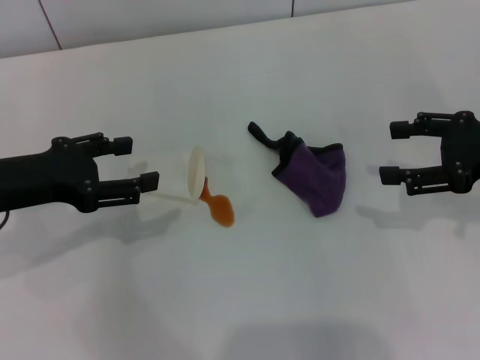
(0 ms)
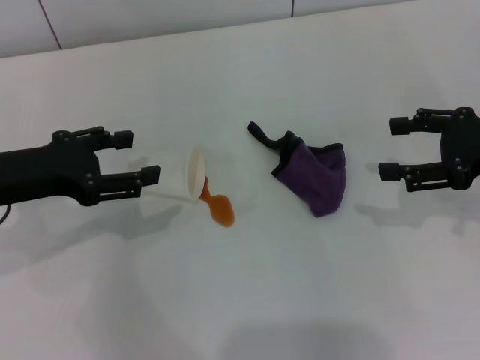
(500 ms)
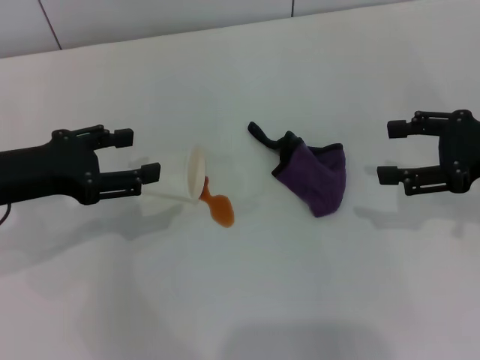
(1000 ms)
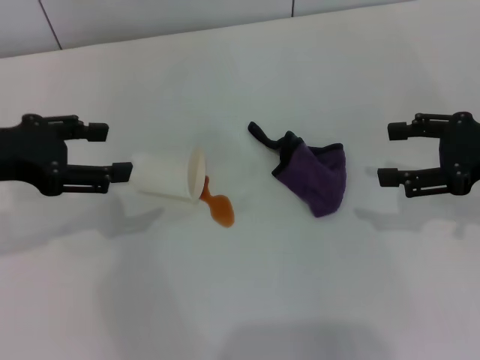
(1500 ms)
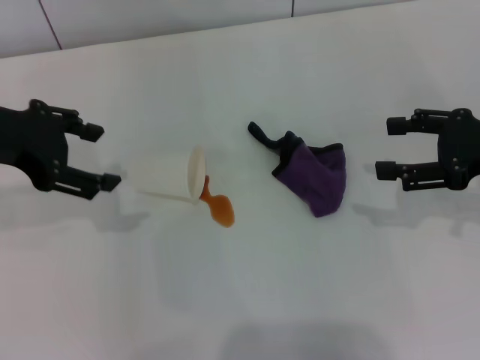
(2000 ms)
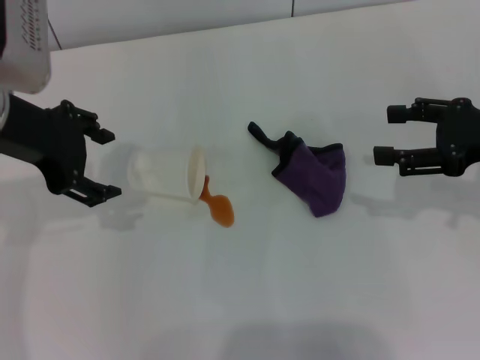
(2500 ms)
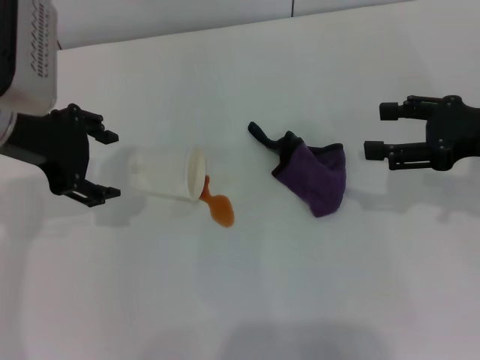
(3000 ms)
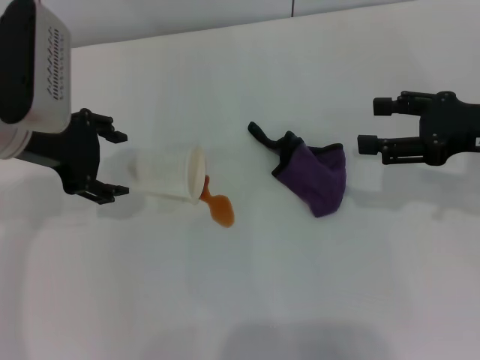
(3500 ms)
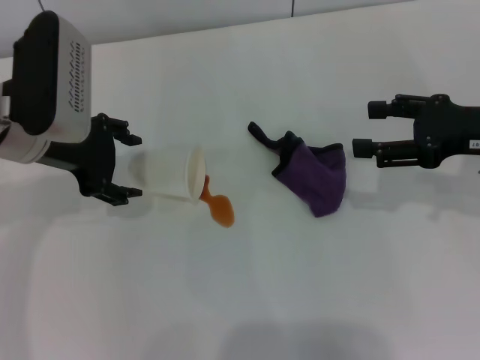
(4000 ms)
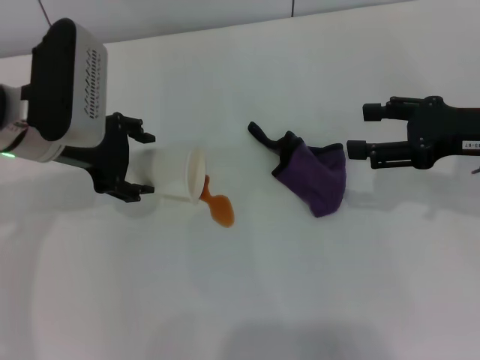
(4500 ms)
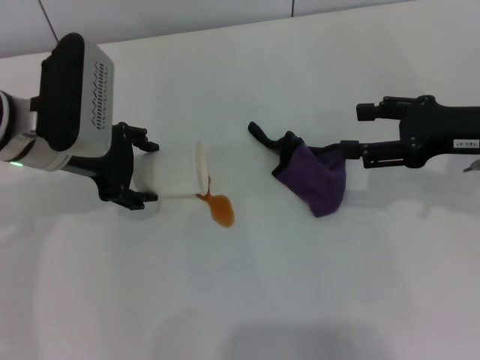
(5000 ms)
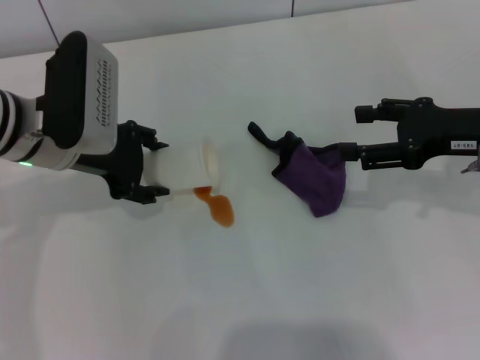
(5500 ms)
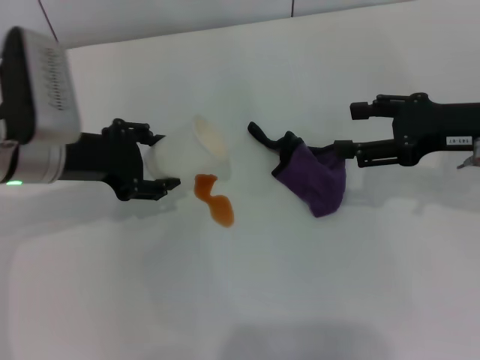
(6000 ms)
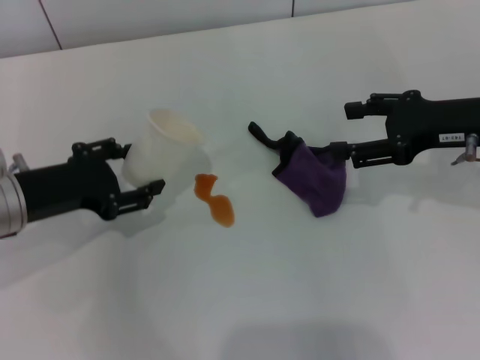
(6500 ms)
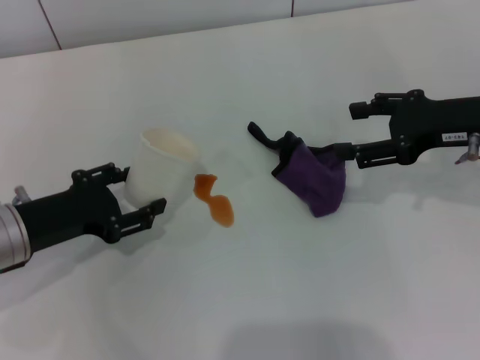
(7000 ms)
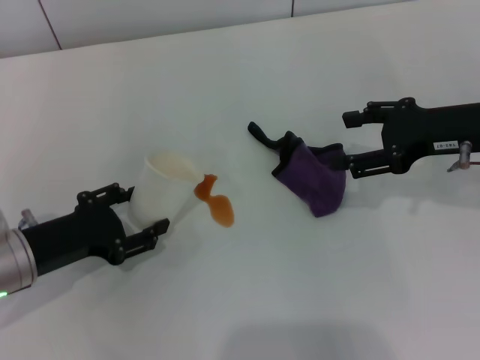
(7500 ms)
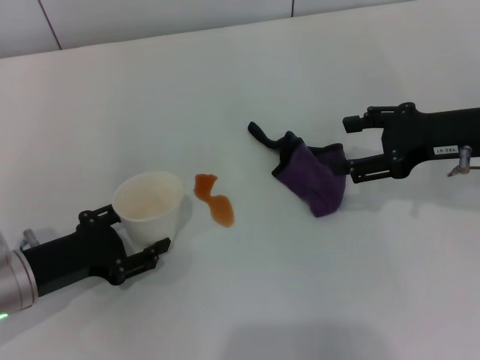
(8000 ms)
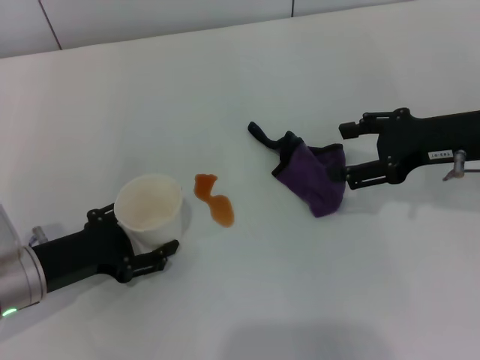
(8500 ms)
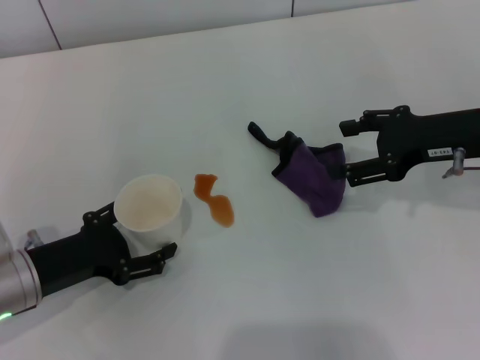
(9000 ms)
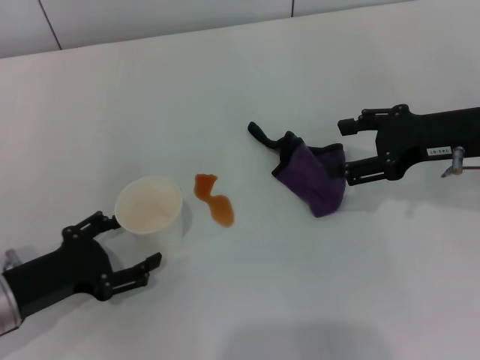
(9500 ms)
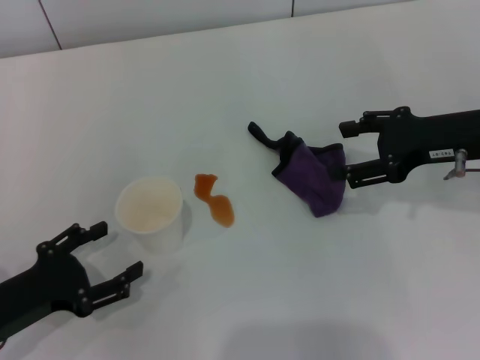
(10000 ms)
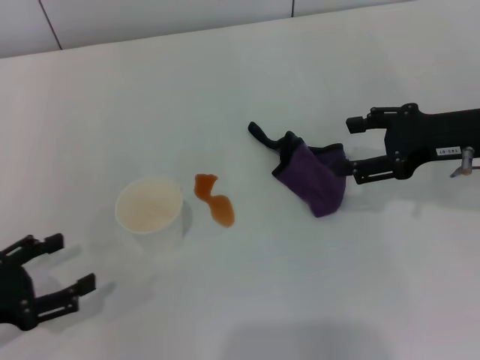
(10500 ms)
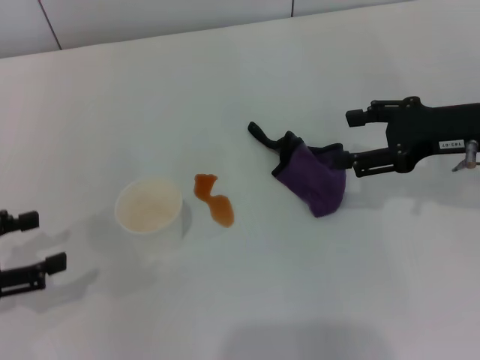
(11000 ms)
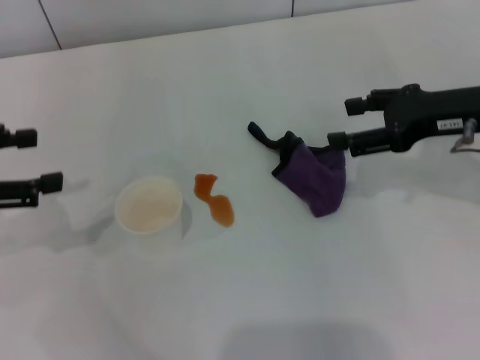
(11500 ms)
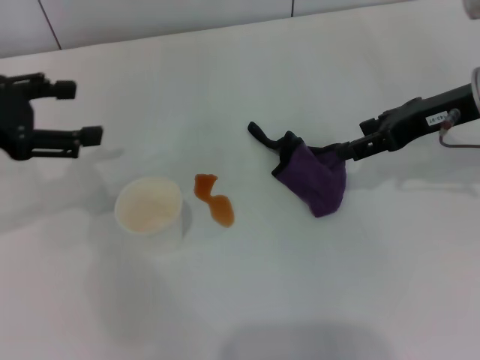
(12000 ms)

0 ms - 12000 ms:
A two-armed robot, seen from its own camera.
Step, 0 ms - 5000 ms: Grasp the paper cup with the left gripper.
Step, 5500 ms - 9500 ms: Stand the paper cup upright with the left gripper.
0 ms - 2000 ms: The left gripper moves upward, roughly 10 cm.
2000 ms - 4000 ms: The left gripper shifts approximately 10 cm downward and to the right.
4000 ms - 6000 ms: The left gripper closes.
6000 ms - 8000 ms: The left gripper moves backward, downward and to the left, about 15 cm.
8000 ms - 10000 ms: The left gripper changes place by roughly 5 cm, and opens its fingers.
10000 ms - 12000 ms: The left gripper is displaced upward and forward by approximately 20 cm.

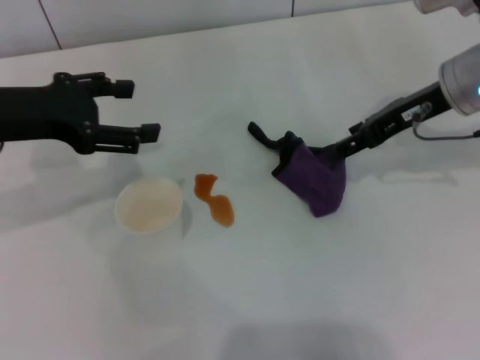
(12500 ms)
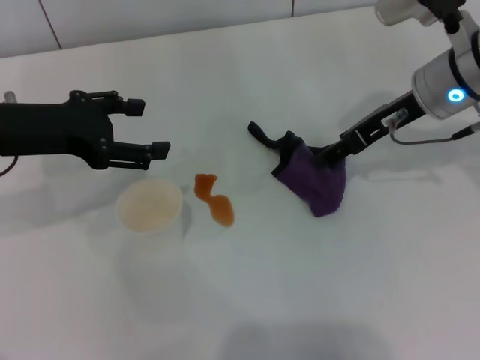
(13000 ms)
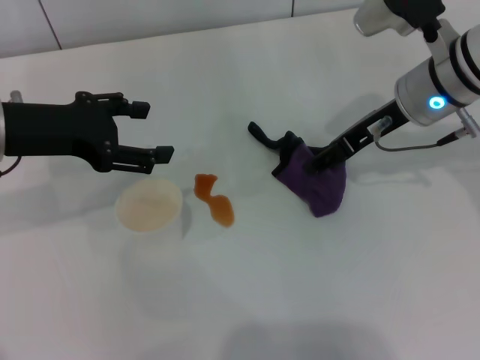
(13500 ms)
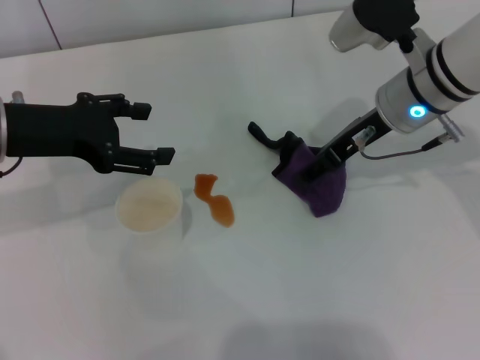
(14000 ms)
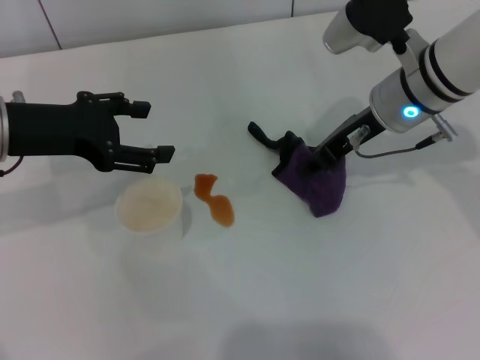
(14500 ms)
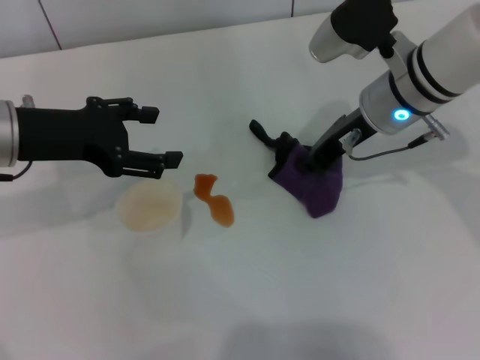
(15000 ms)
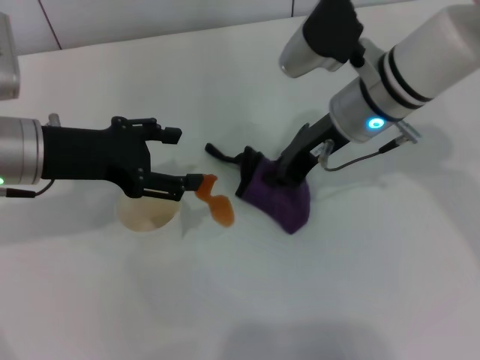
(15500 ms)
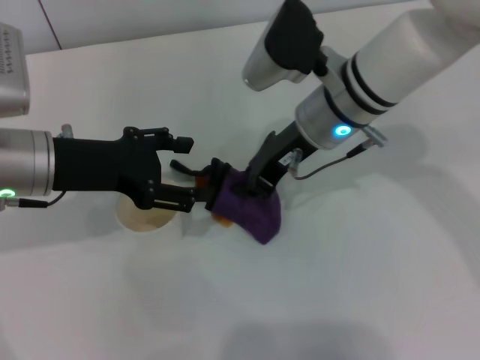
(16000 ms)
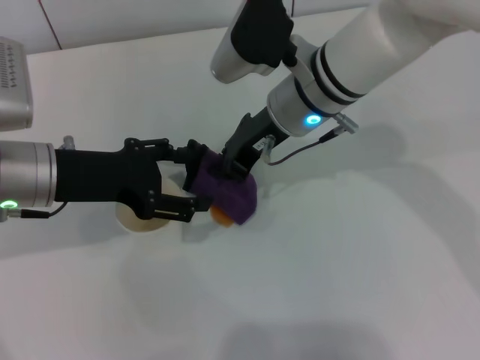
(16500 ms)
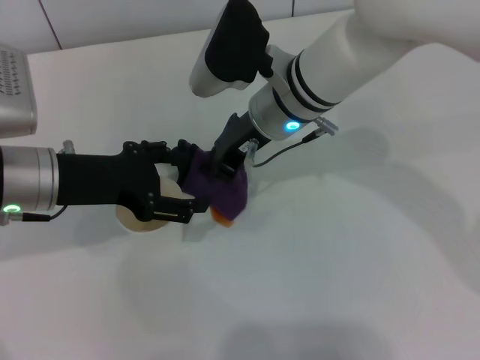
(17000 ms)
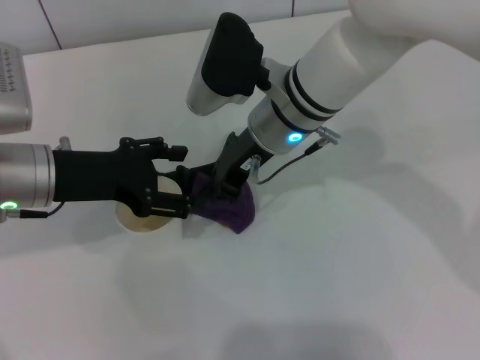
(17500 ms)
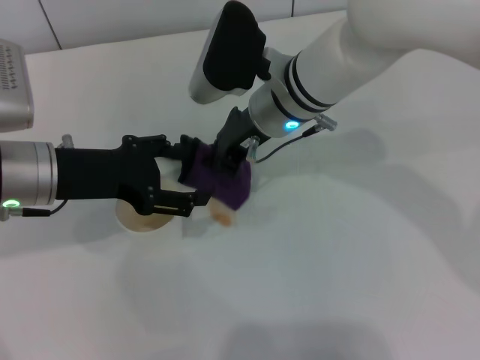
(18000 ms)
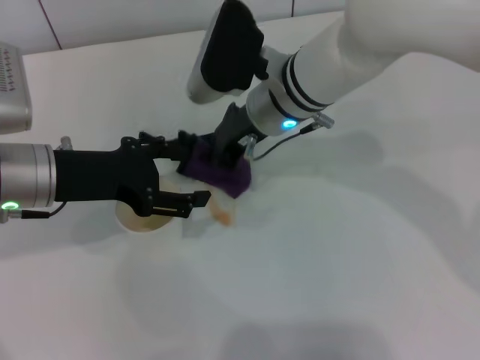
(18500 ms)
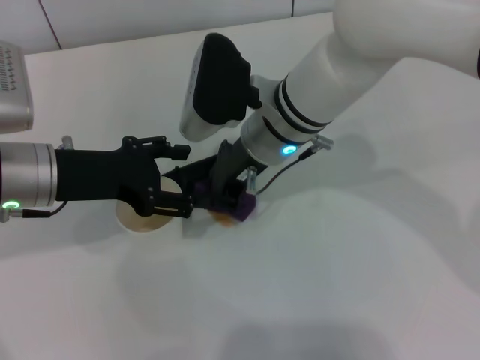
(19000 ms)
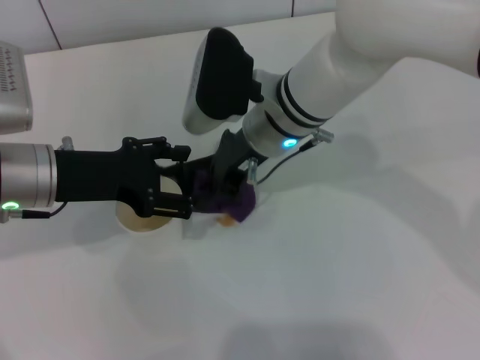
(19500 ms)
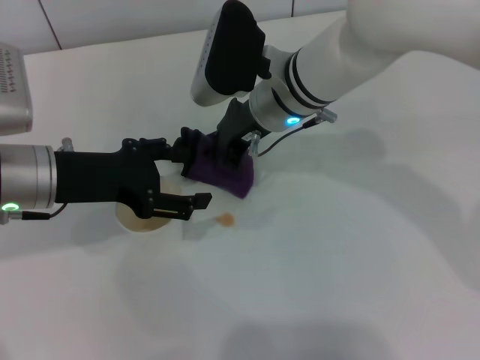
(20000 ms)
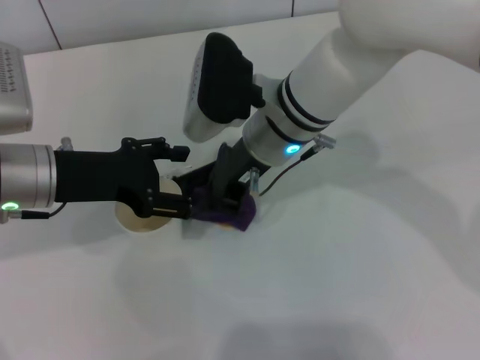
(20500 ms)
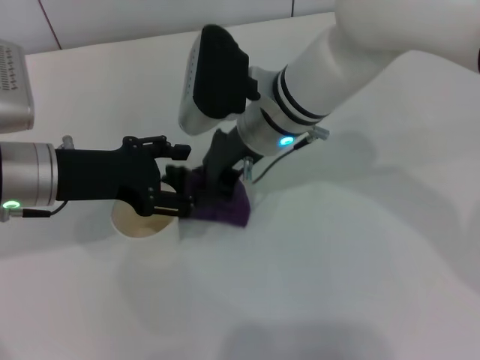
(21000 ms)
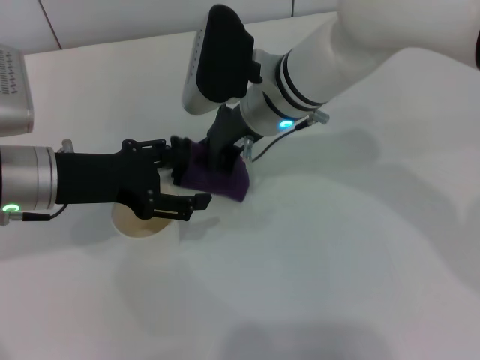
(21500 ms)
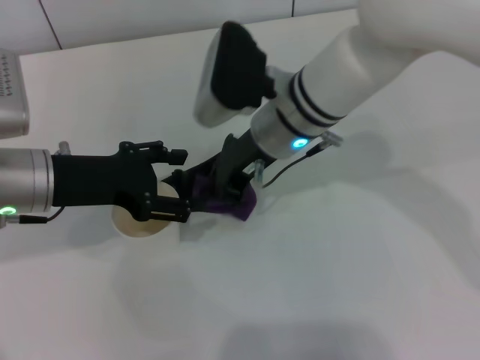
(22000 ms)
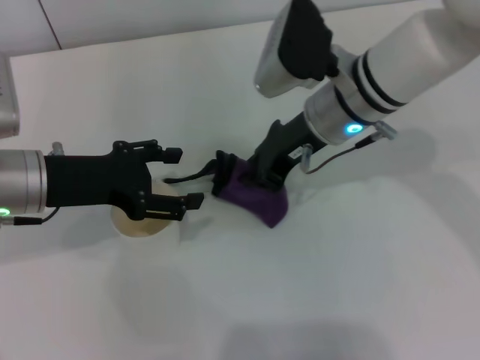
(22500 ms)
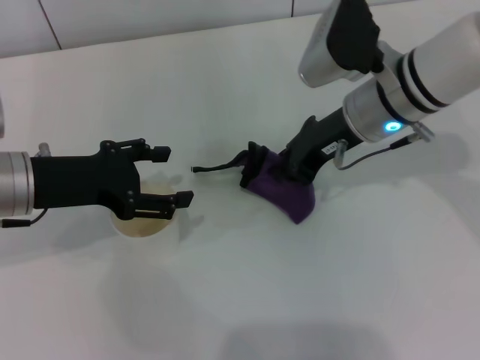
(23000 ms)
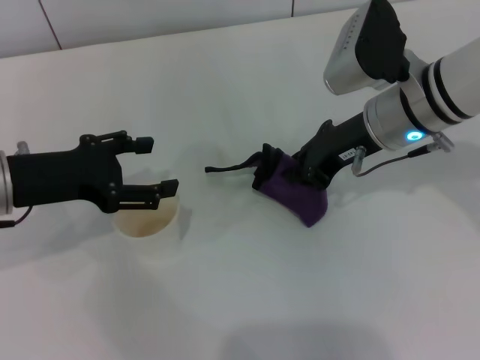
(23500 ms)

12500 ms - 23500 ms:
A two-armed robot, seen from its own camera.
Step, 12500 ms - 14500 ms: Grasp the rag with the right gripper.
12500 ms - 14500 ms: The right gripper shifts roughly 5 cm to the left.
14500 ms - 16000 ms: The right gripper goes approximately 10 cm to the left, and closes up.
16000 ms - 18000 ms: The right gripper ends up approximately 5 cm from where it was.
18000 ms - 21500 ms: The grippers make only small movements.
21500 ms - 23500 ms: The right gripper heads to the right, covering roughly 10 cm.

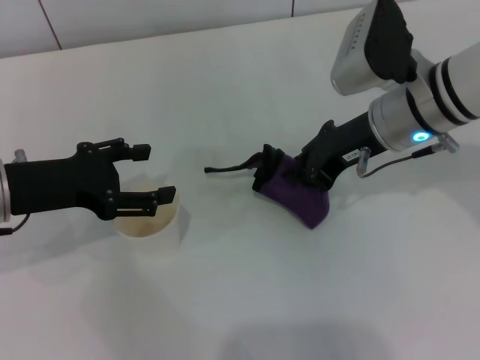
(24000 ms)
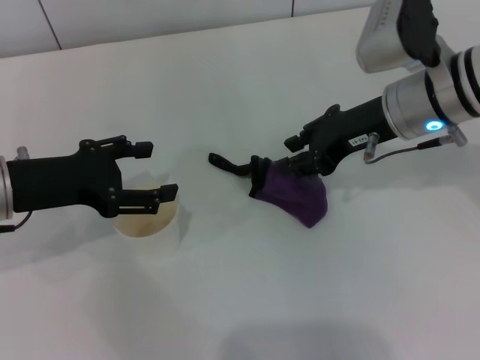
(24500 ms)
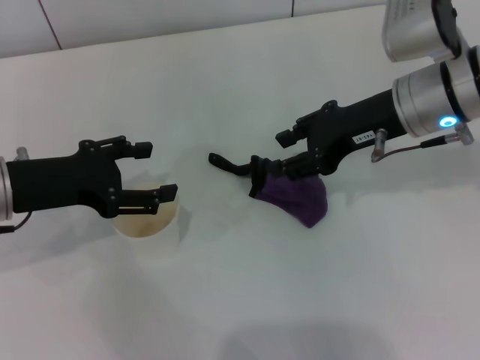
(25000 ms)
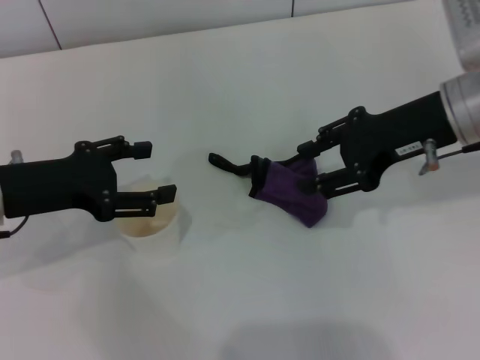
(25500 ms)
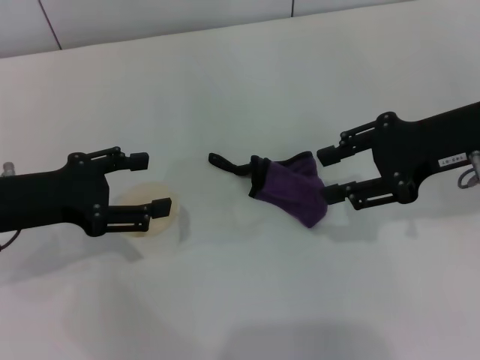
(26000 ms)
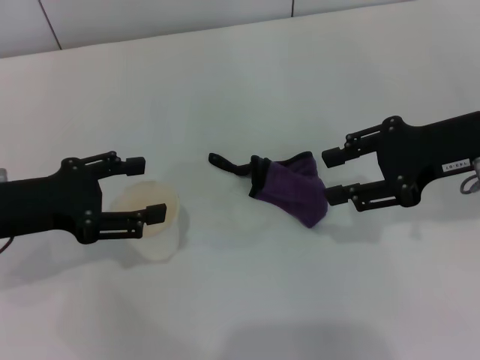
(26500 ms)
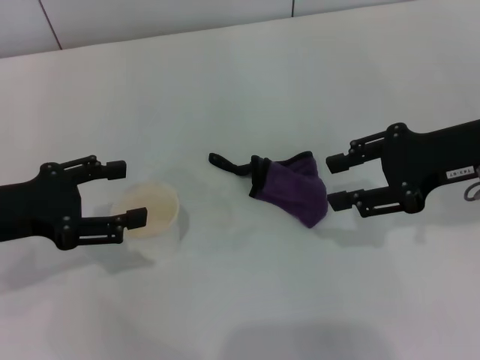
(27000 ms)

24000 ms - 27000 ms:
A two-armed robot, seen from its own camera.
Step, 24500 ms - 25000 ms: Place the rag on the table with the right gripper.
24000 ms - 25500 ms: The right gripper shifts by roughly 5 cm, and opens its fingers.
25500 ms - 27000 ms: The right gripper moves roughly 5 cm.
